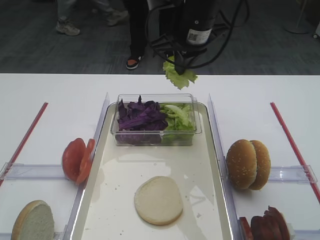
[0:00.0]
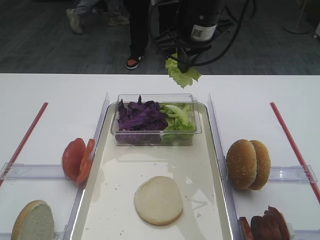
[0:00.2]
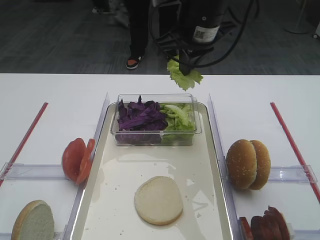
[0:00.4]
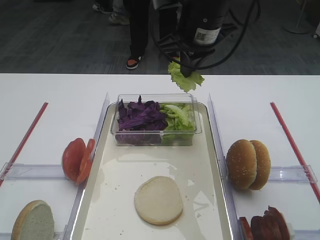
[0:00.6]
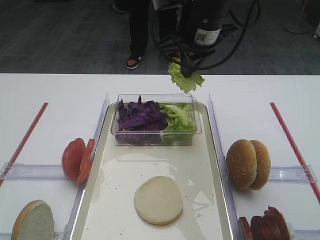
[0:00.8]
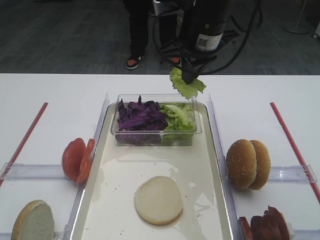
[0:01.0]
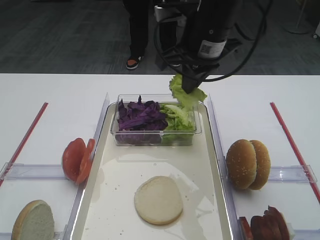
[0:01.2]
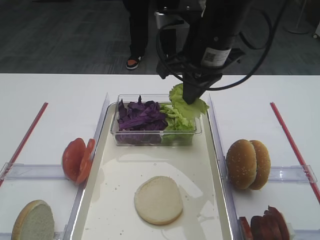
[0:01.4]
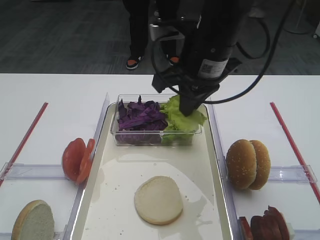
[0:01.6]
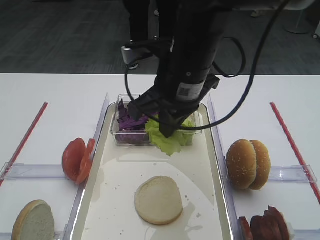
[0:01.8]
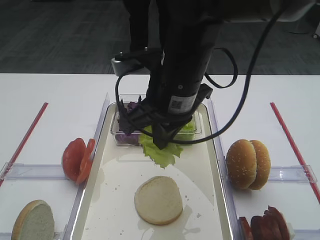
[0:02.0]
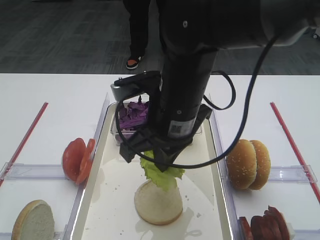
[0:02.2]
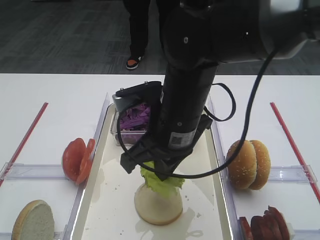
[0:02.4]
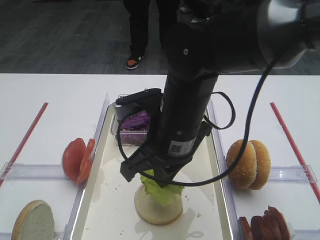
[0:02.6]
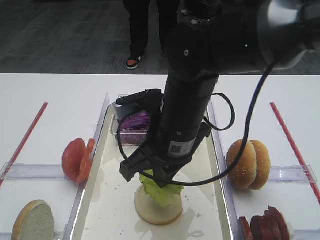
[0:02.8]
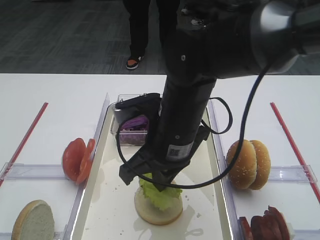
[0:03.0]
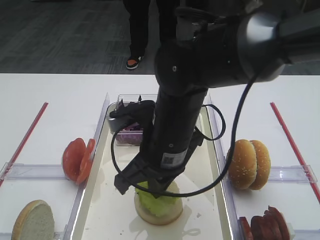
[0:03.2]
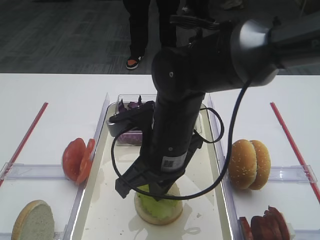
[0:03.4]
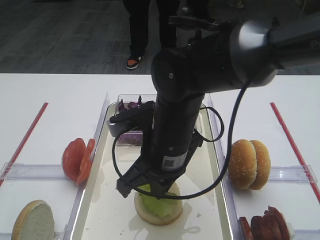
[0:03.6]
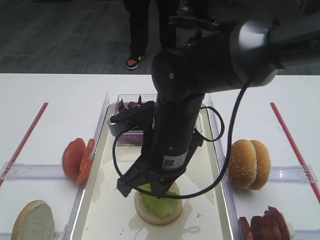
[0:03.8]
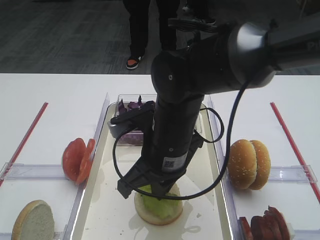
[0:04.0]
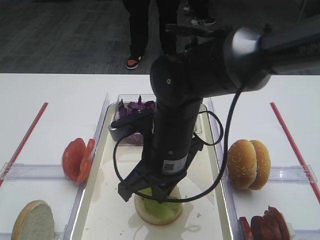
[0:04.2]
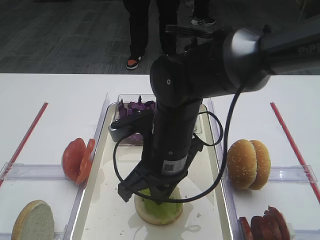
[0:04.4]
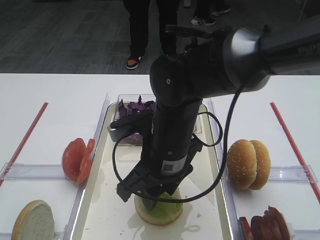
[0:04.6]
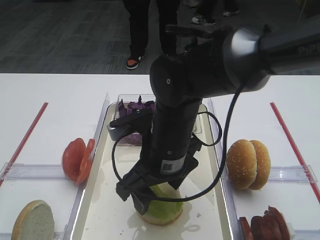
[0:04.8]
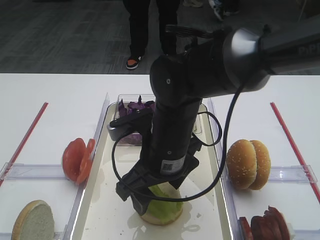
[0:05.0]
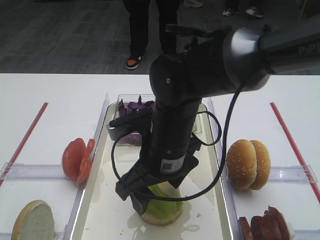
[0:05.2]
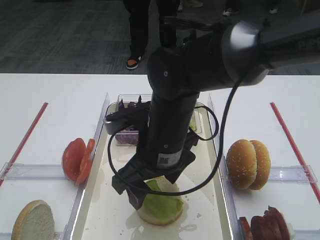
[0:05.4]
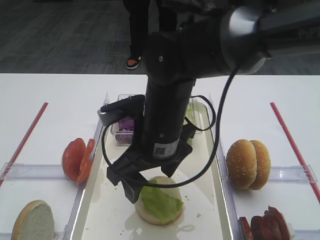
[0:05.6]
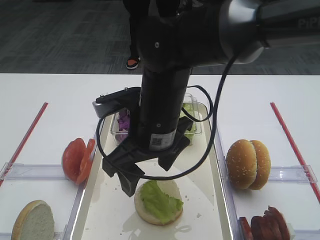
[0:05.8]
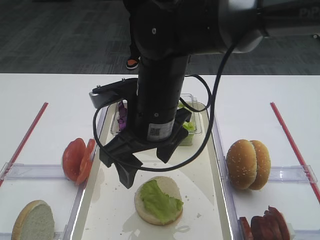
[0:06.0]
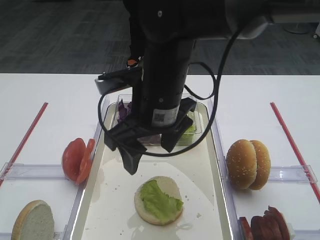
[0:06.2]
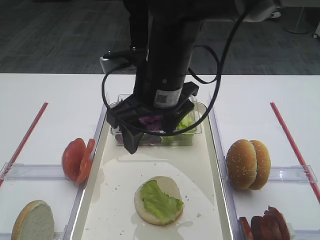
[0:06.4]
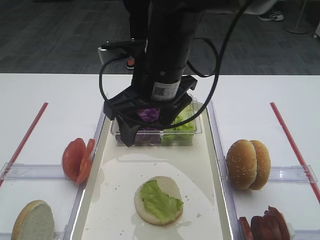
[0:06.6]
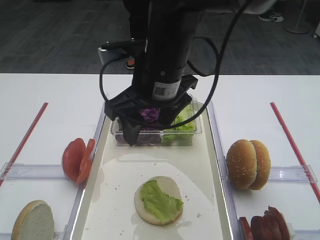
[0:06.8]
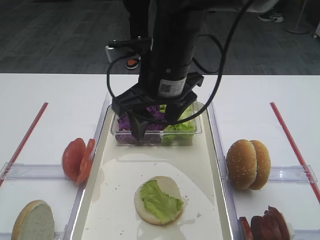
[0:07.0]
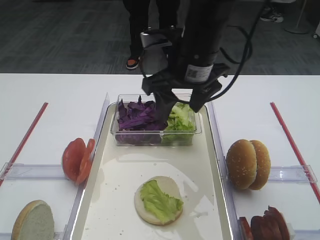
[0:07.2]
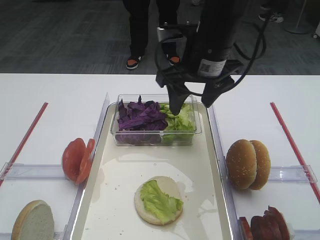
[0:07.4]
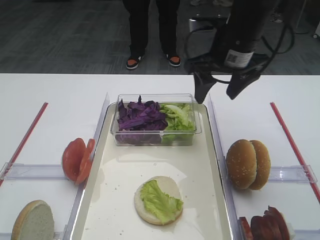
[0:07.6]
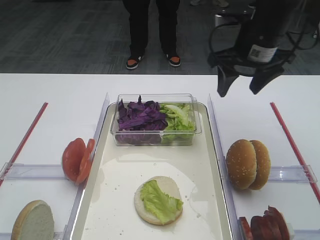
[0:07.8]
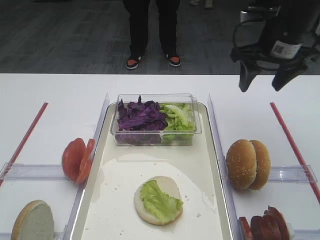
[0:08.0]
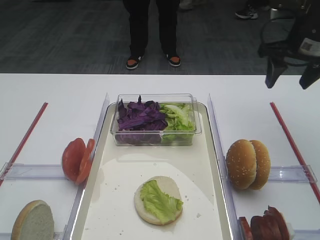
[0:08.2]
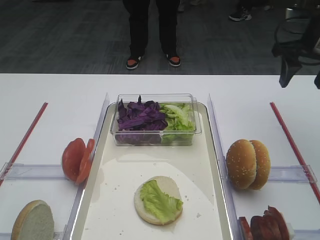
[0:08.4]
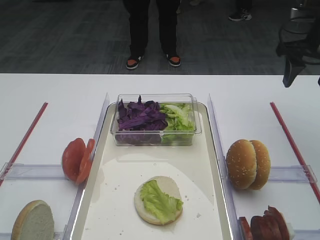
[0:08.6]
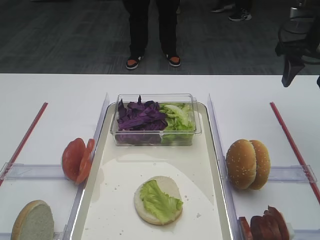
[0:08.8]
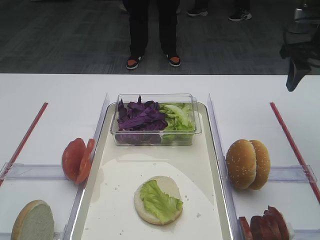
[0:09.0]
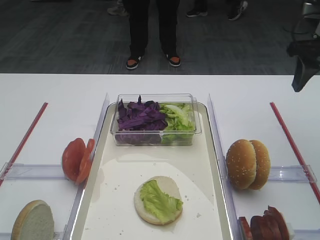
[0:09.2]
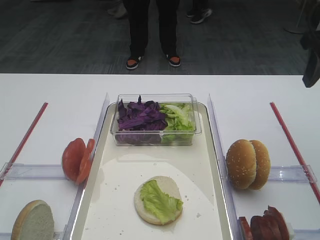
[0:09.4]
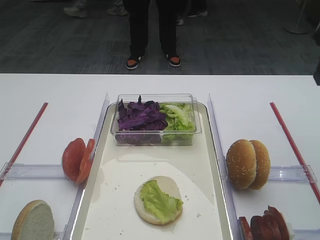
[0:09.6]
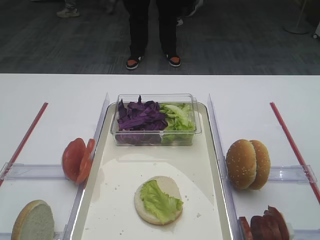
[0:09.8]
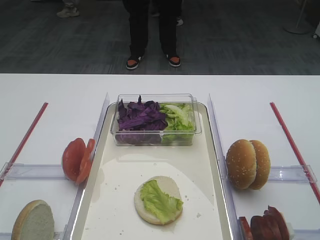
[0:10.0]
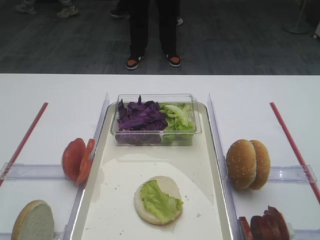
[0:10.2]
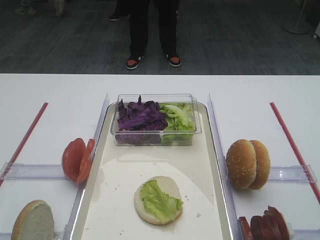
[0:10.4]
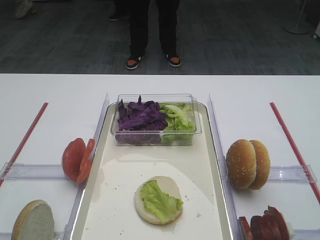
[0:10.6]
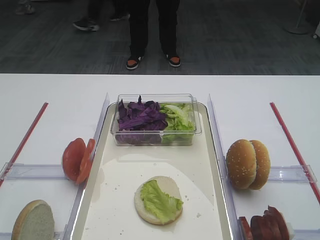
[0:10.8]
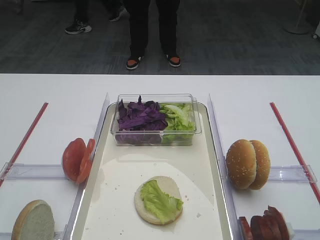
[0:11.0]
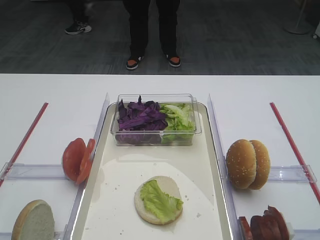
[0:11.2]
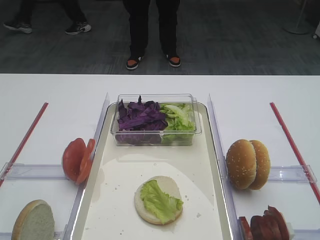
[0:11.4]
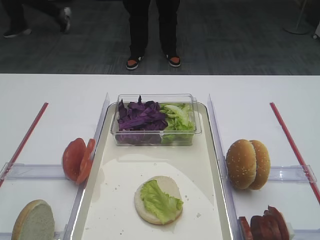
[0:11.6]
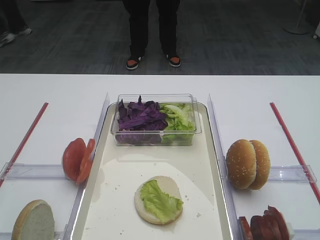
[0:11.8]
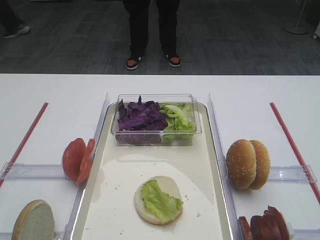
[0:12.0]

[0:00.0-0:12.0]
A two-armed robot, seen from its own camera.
Step, 0:00.0 to 0:05.4: Place the lettuce leaf on the bread slice with the right gripper.
0:00.0 to 0:01.6: The right gripper moves backward, roughly 10 cm.
0:01.6 to 0:03.0: The right gripper shifts about 10 cm downward, backward and to the left.
0:03.0 to 0:04.4: The grippers make only small movements.
0:04.4 to 0:06.0: The right gripper travels upward by approximately 5 cm, and opens its fingers.
0:06.0 to 0:07.6: The right gripper is displaced to the right and forward by approximately 15 cm.
0:07.6 to 0:09.0: The right gripper shifts approximately 15 cm to the right.
0:09.0 to 0:10.4: The right gripper heads backward and upward, covering about 25 cm.

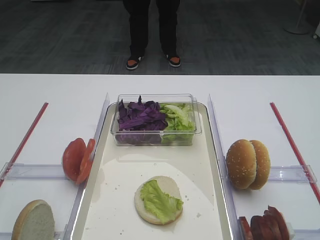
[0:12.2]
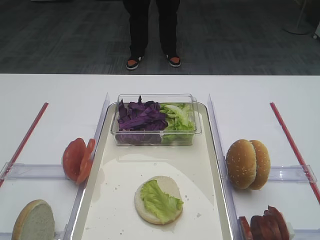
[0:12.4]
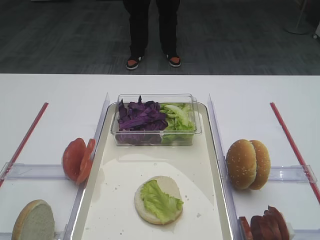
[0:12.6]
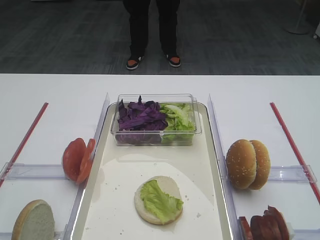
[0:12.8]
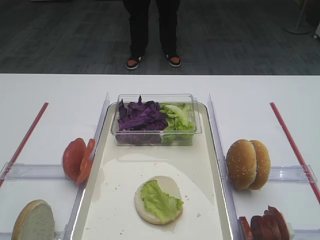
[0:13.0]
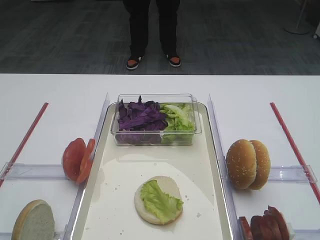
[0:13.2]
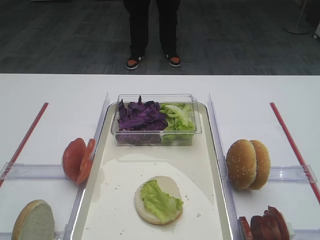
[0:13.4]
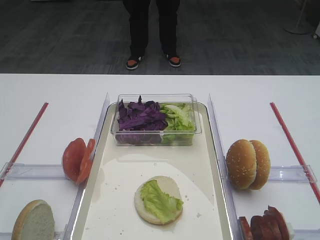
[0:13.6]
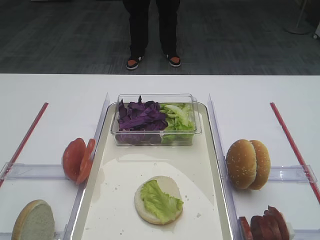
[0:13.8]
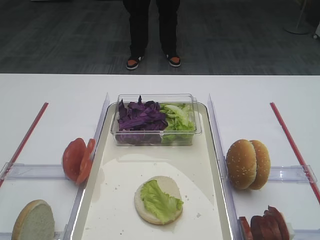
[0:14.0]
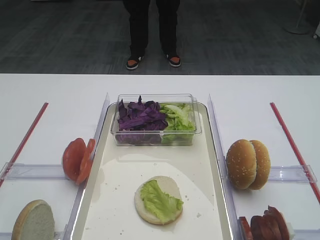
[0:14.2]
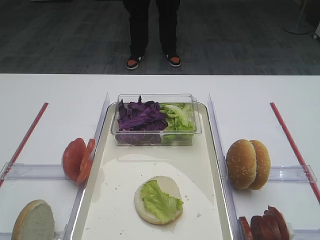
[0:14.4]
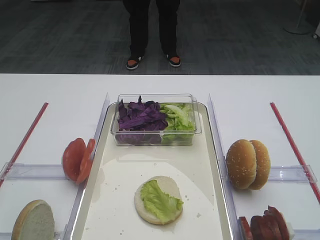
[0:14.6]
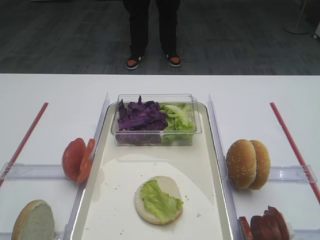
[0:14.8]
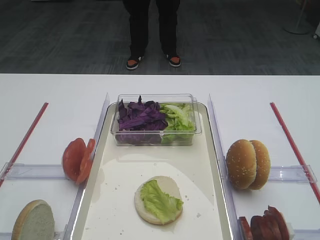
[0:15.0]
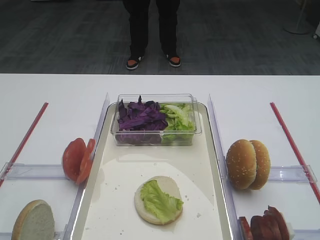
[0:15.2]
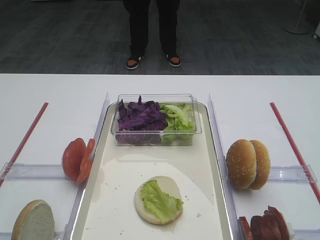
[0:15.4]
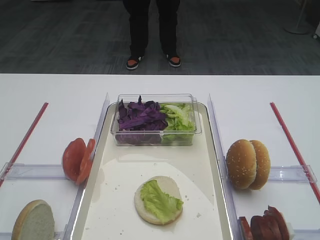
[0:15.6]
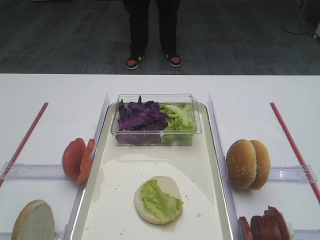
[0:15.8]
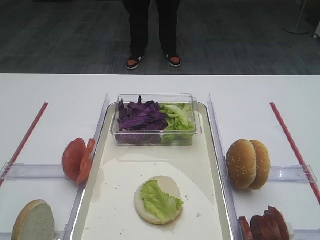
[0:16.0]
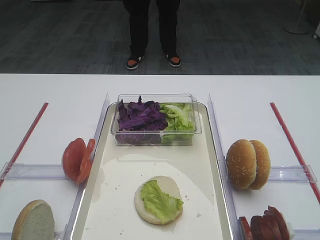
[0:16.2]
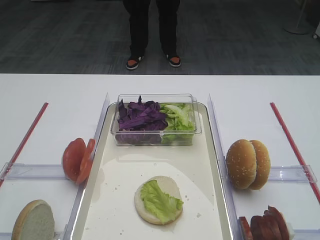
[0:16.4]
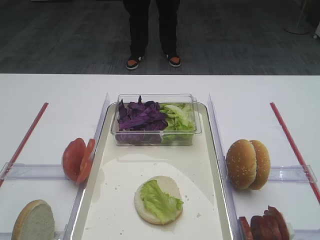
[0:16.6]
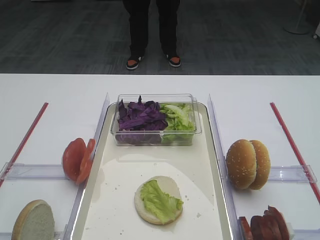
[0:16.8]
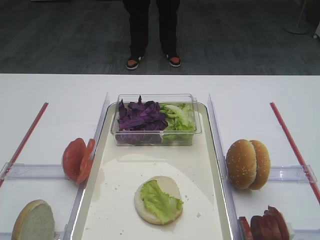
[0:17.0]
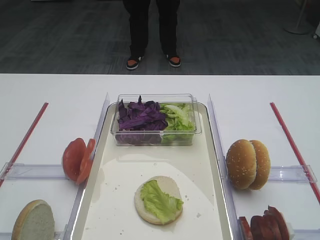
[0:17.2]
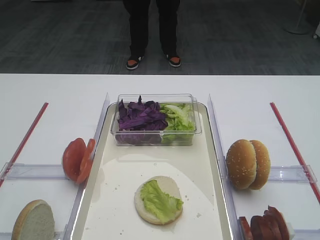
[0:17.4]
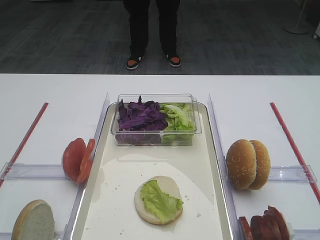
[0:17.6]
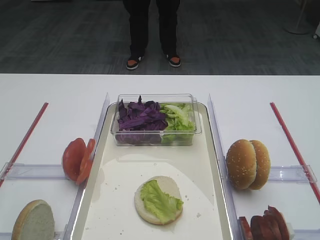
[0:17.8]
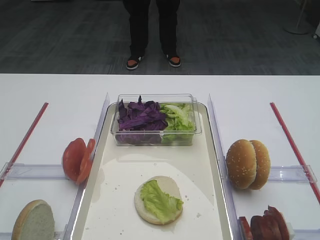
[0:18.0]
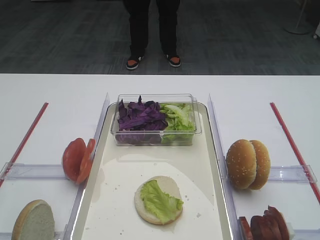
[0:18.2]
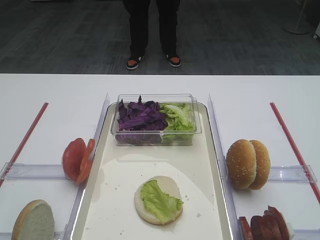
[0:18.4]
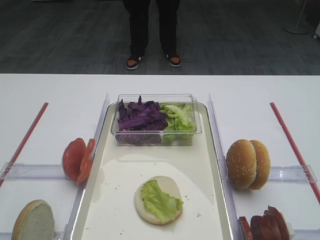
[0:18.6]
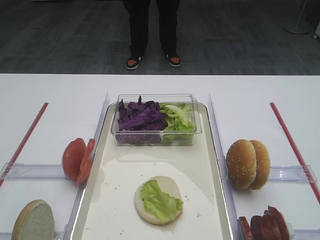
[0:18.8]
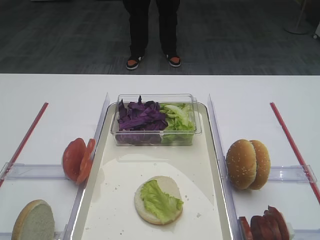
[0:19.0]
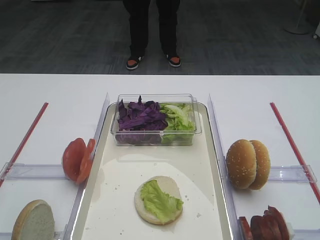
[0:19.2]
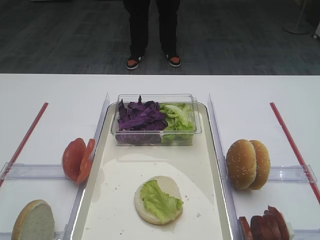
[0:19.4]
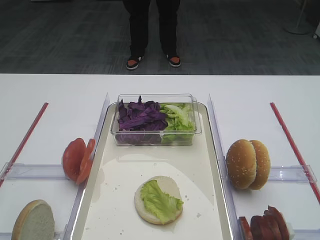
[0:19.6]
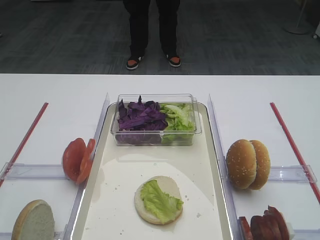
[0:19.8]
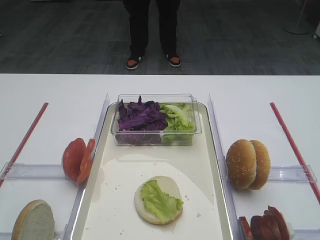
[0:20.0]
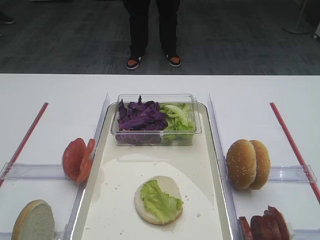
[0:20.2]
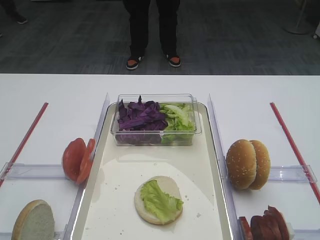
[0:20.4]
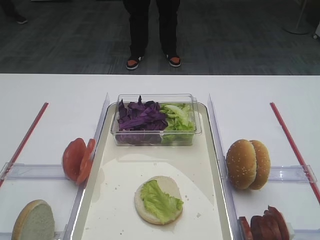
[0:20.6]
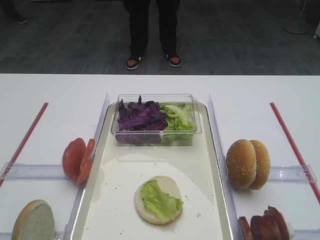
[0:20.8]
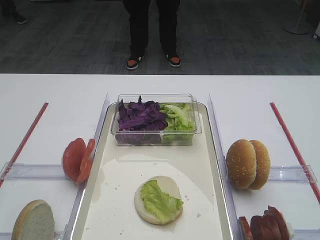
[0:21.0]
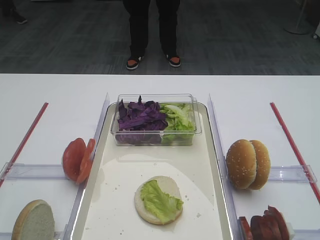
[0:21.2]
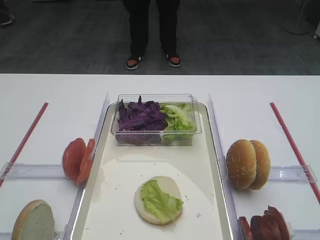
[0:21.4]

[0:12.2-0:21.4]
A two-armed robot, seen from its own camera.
0:13.8 to 0:21.4: Neither gripper changes place.

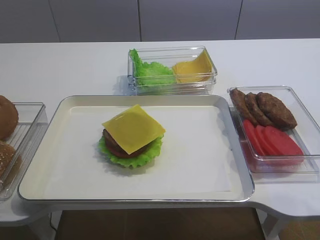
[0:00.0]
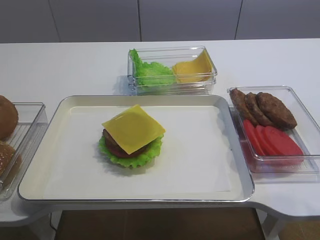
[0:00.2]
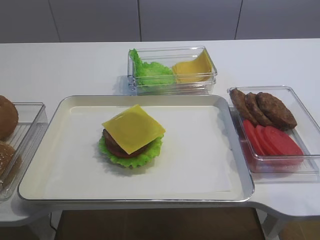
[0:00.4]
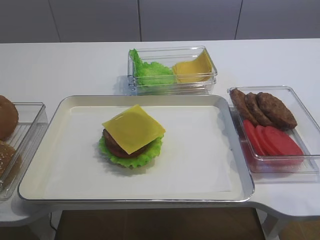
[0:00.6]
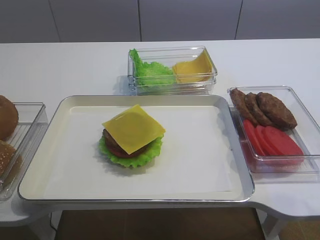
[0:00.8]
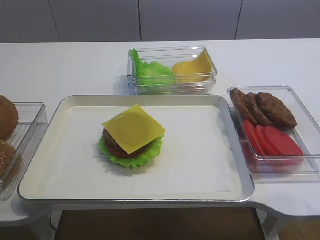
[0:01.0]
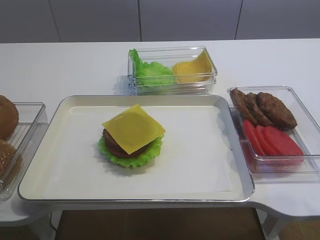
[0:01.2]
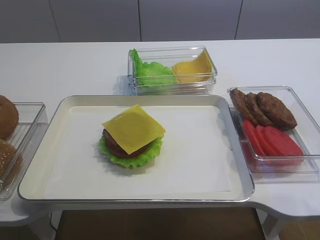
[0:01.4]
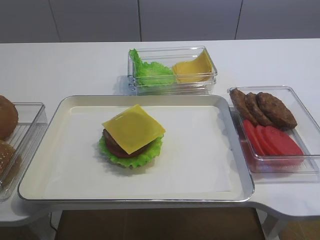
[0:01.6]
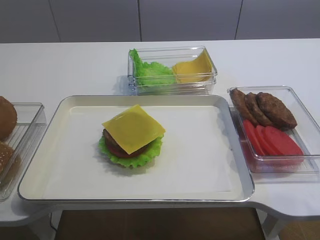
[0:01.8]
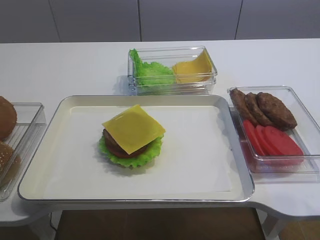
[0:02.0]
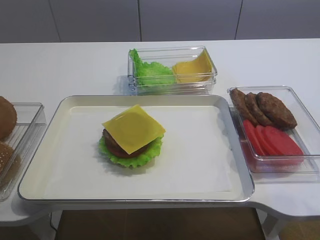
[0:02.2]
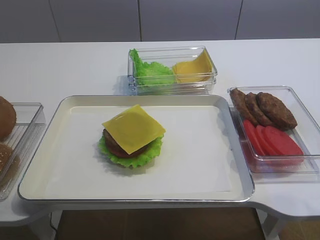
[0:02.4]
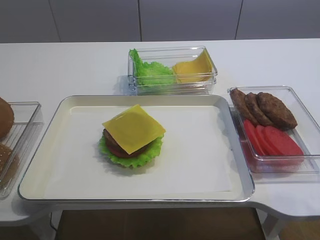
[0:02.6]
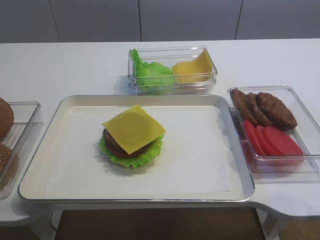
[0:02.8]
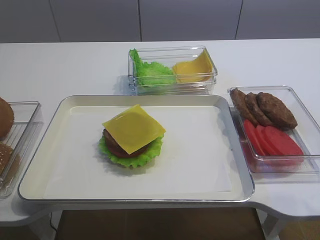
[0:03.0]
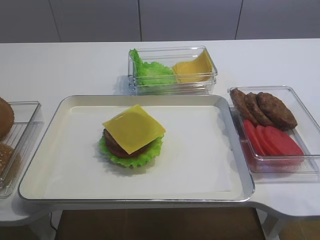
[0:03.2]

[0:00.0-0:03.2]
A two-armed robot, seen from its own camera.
0:01.6 to 0:03.2: The grippers make only small movements.
